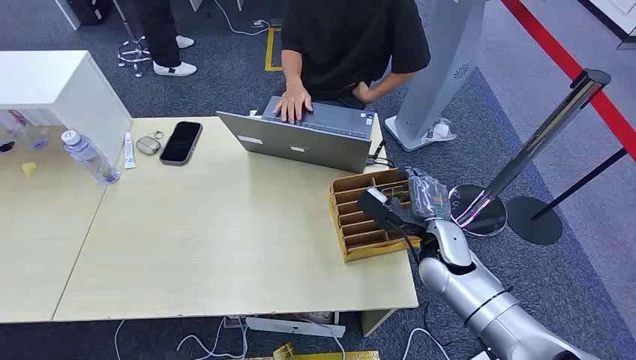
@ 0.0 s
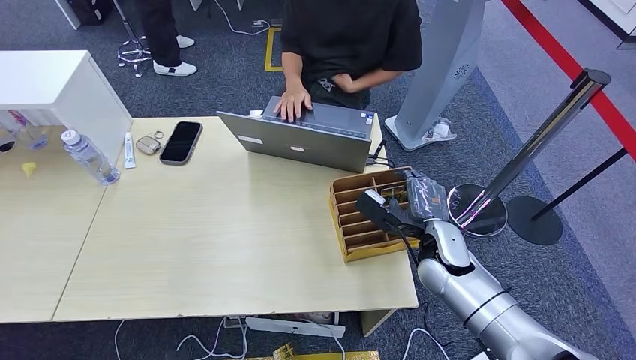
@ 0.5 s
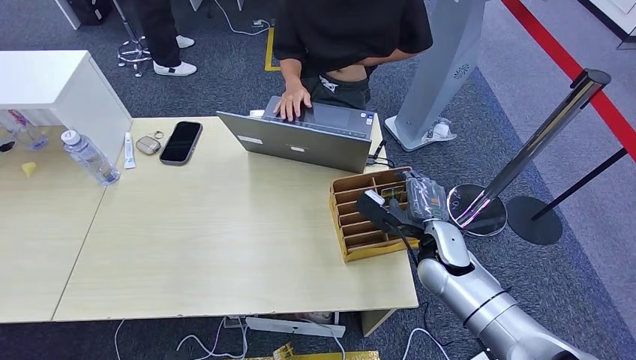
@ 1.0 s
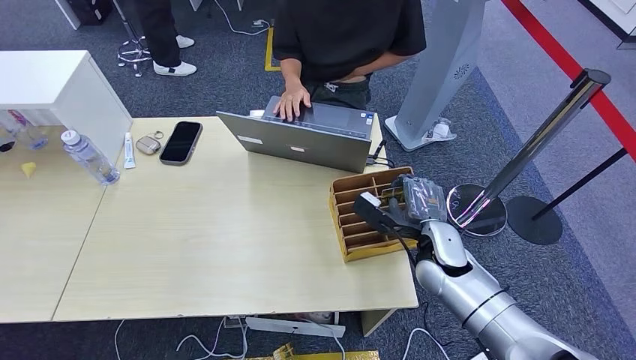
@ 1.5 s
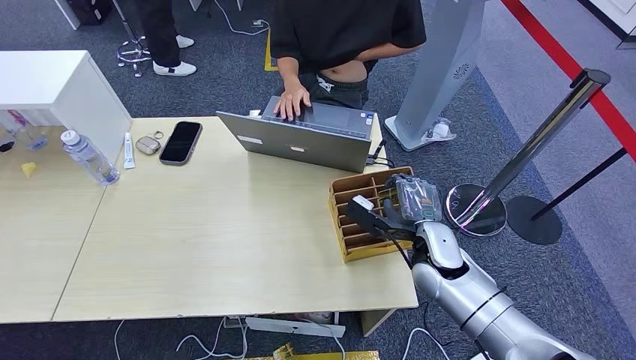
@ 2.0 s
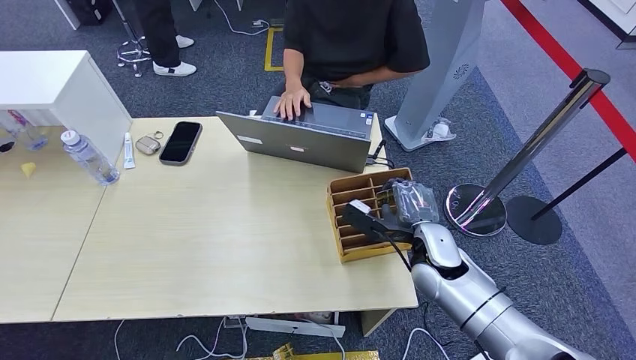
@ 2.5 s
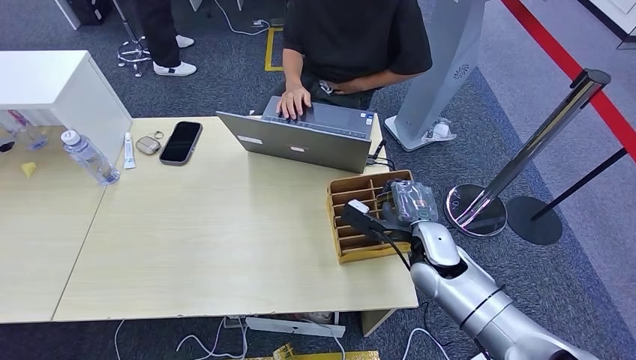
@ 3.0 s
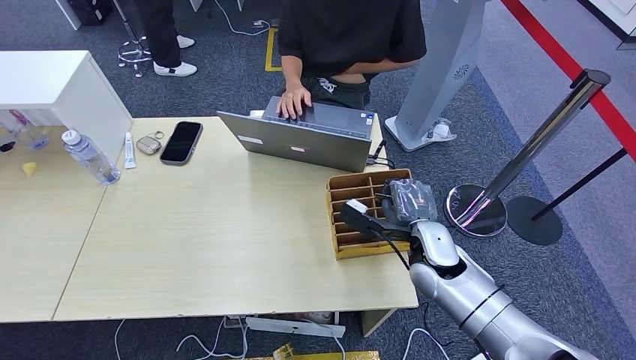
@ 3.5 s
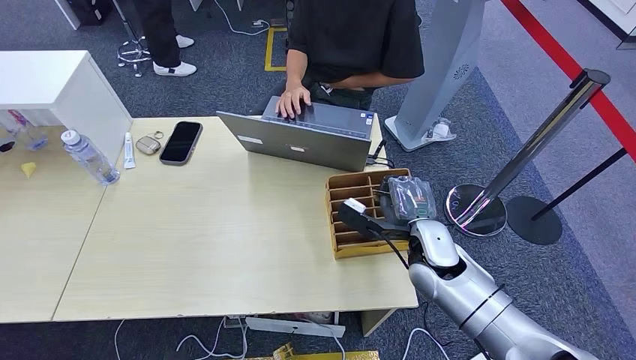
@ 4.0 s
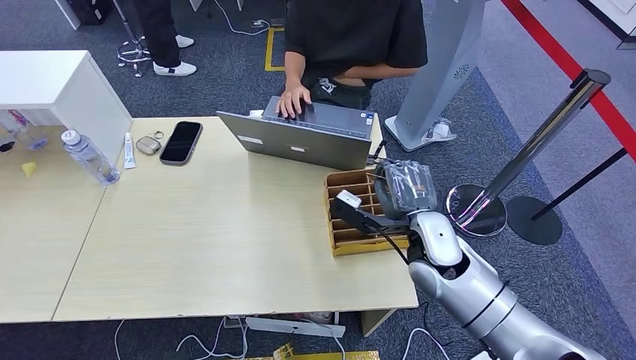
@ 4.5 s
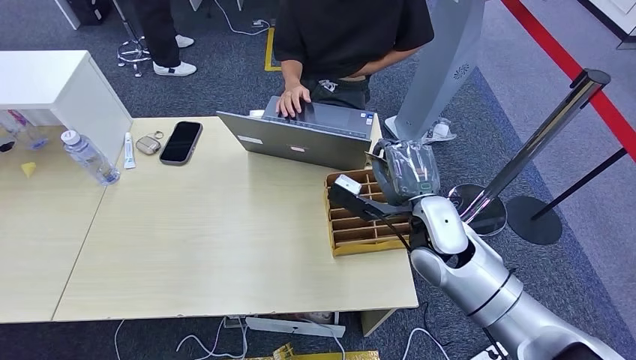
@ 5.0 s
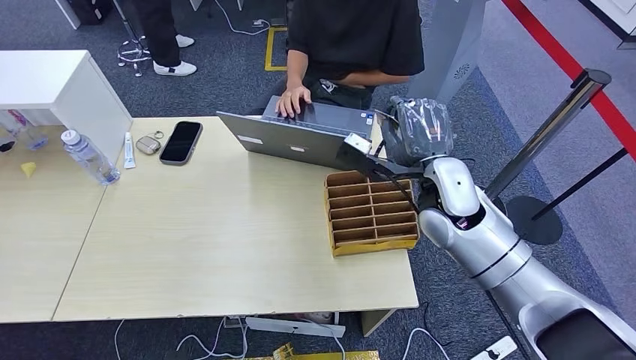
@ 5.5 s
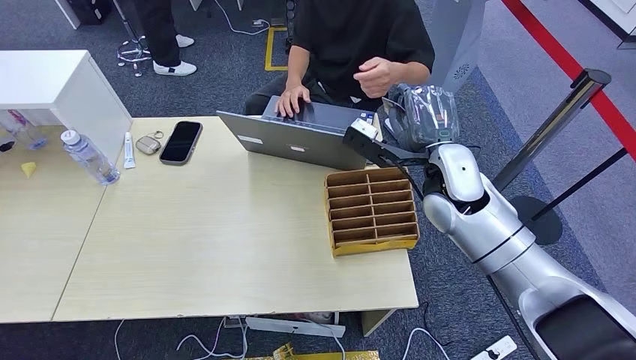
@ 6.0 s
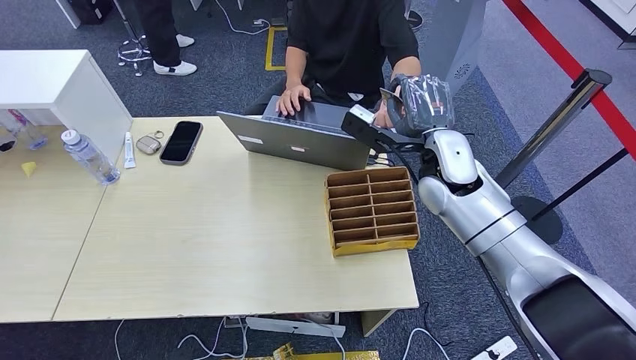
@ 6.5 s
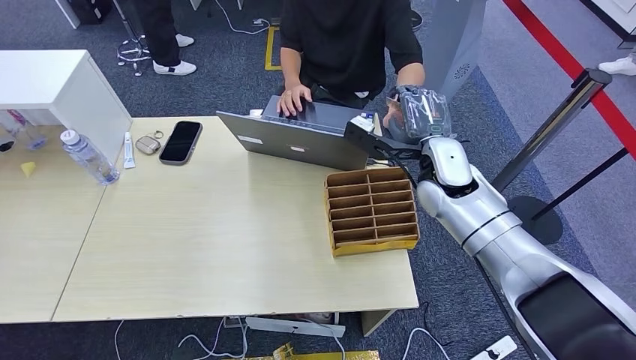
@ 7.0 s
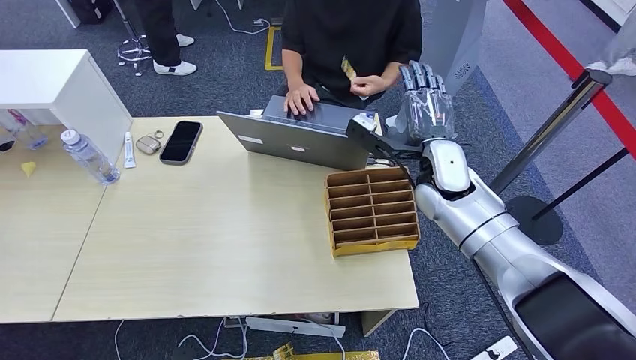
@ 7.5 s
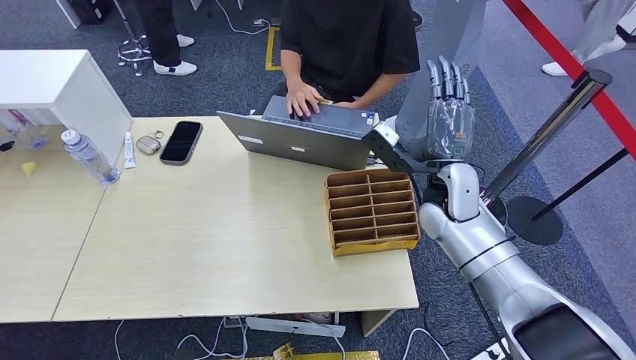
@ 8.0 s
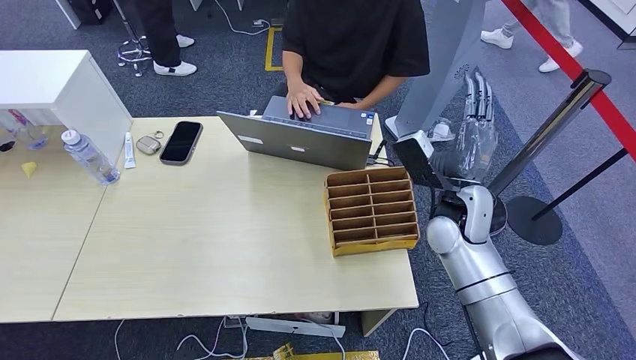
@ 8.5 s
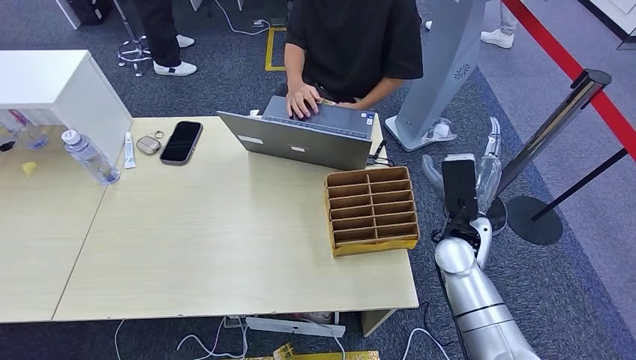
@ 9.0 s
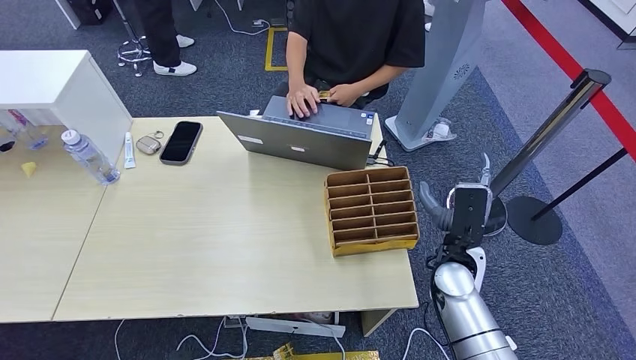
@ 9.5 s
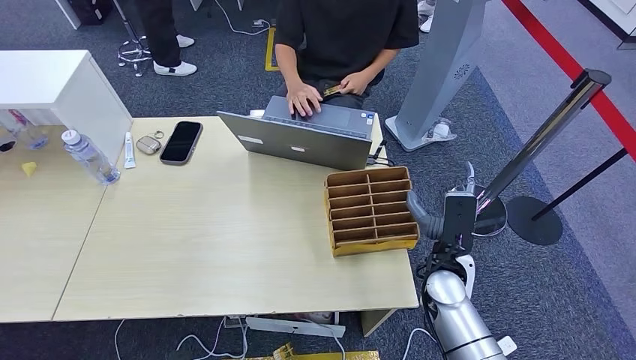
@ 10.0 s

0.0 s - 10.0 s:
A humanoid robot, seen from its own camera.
Step, 0.0 s - 5.0 s: Pick up the key card from the card box.
Step, 5.5 s - 10.0 s: Hand the key card to the target.
2.0 s - 4.0 s: The hands stay close to where they were, moving slightly.
4.0 s - 6.0 s: The right hand heads upward and forward, covering about 15 cm.
6.0 s - 8.0 s: The hands stay close to where they were, moving slightly.
8.0 s - 10.0 s: The right hand moves downward and backward, roughly 15 cm.

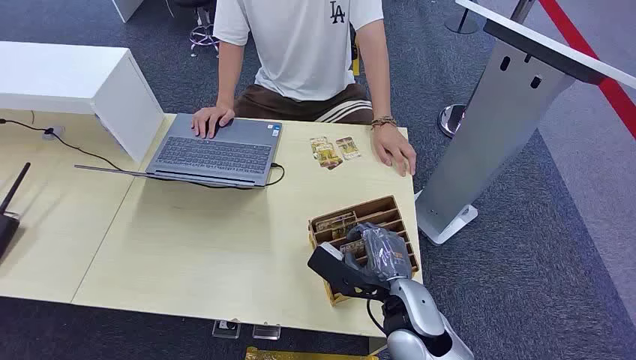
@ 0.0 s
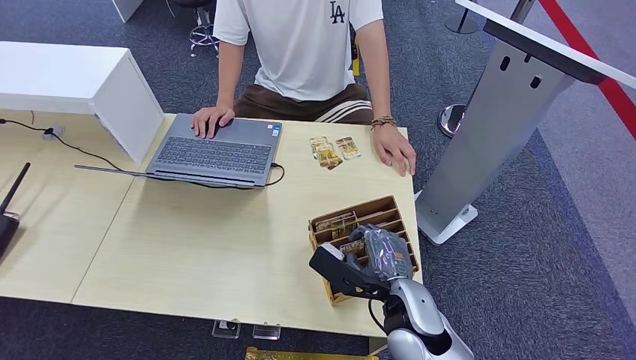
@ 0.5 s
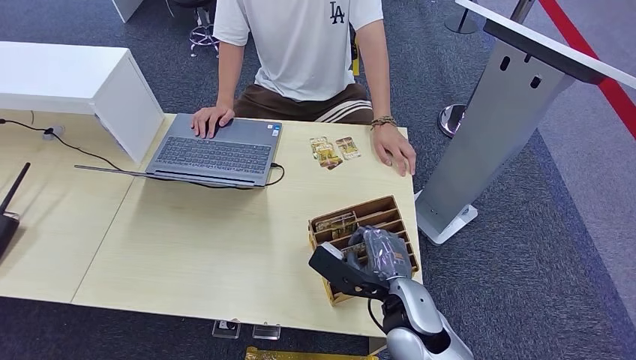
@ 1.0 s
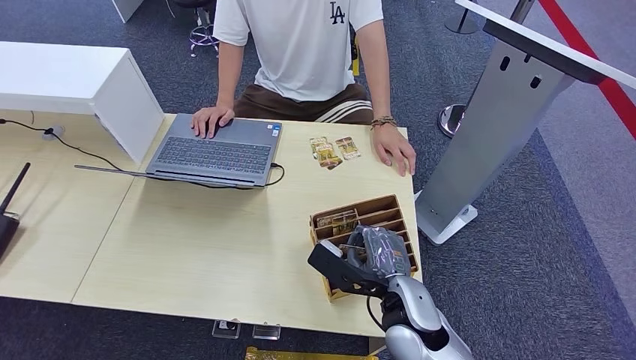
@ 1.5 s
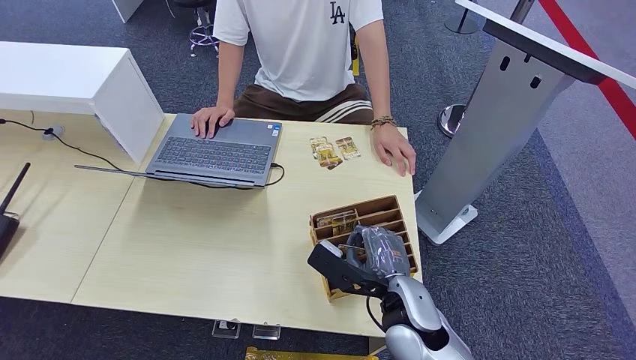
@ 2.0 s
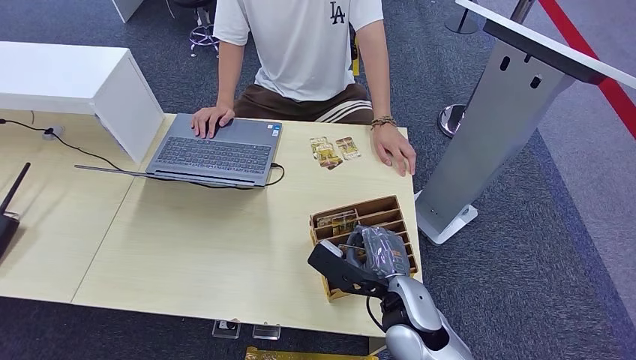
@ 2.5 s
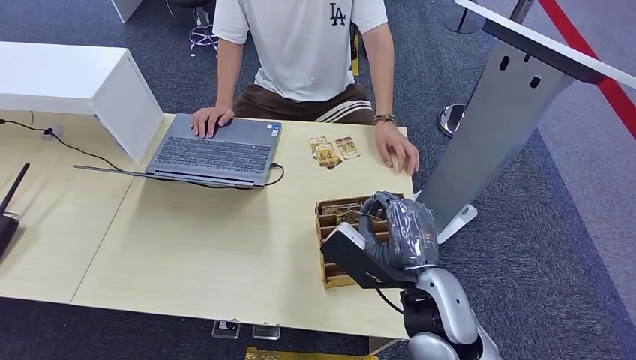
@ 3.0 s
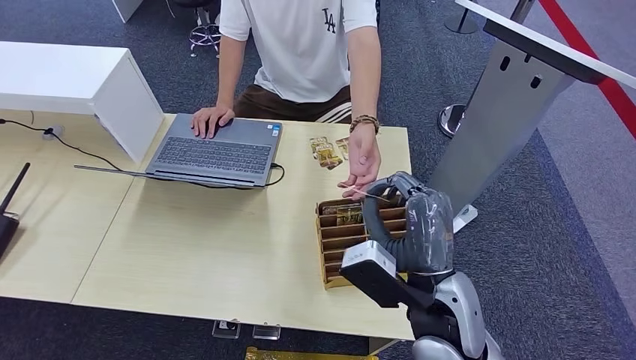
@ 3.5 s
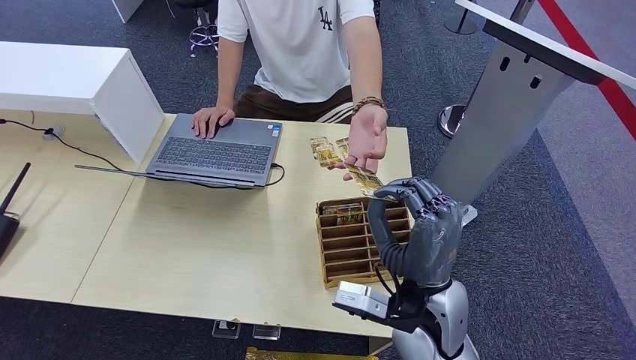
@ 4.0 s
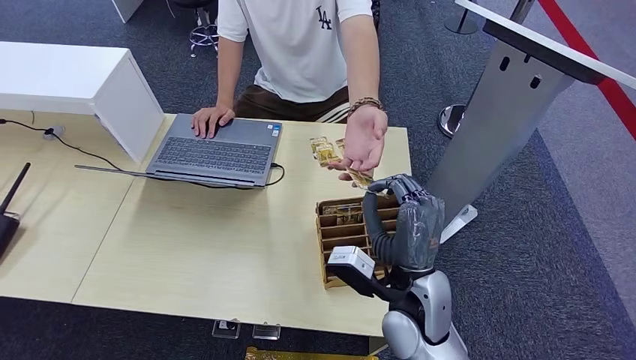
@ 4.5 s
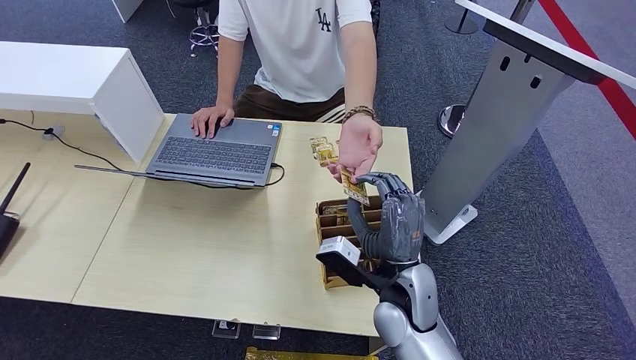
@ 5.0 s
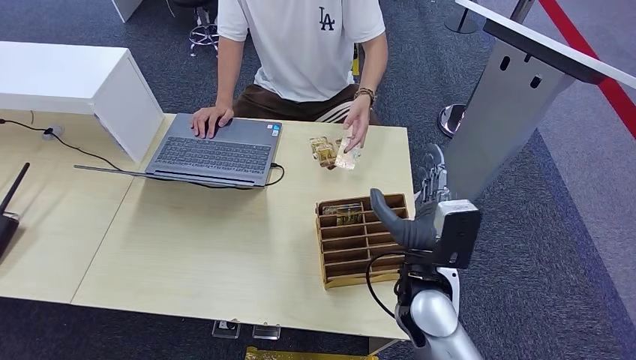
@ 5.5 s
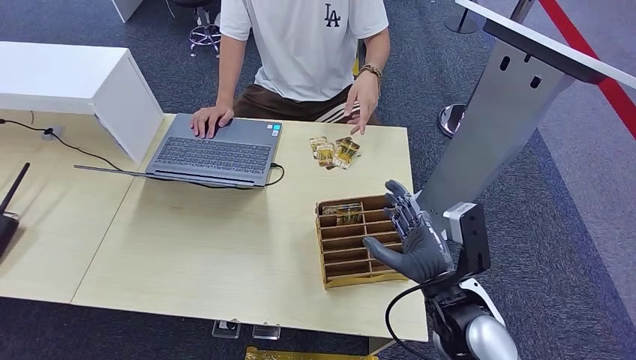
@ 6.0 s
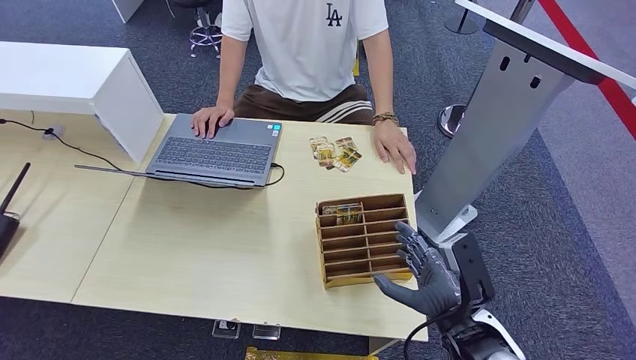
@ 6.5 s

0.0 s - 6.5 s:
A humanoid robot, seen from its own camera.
Step, 0.0 s - 3.0 s: Pick up the key card from the card box.
Step, 3.5 s - 6.5 s: Hand the key card to the target.
4.5 s - 6.5 s: The right hand heads to the right, covering approximately 10 cm.
